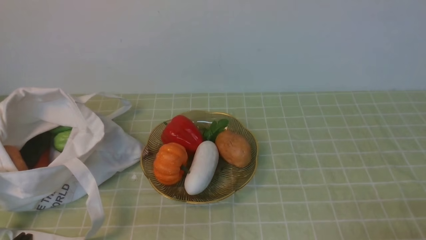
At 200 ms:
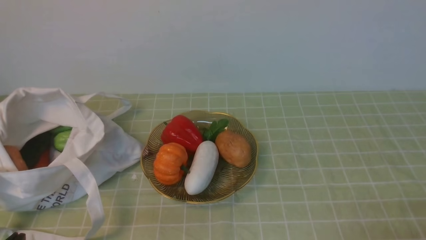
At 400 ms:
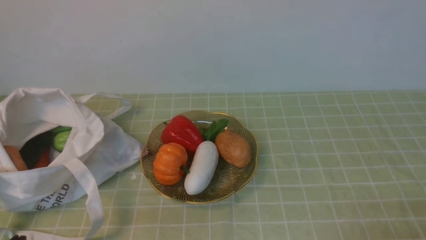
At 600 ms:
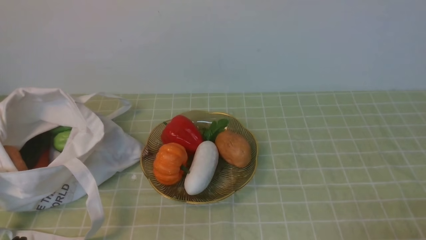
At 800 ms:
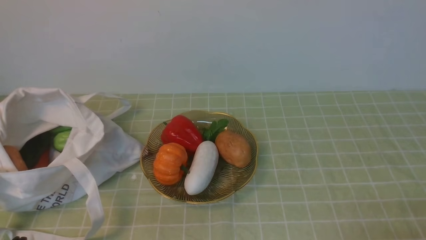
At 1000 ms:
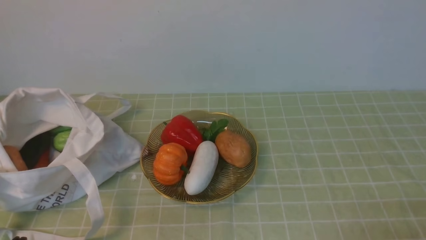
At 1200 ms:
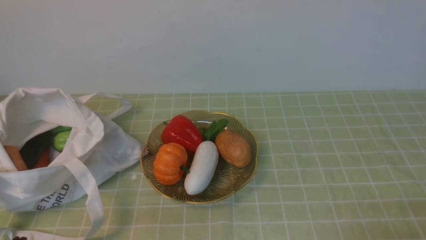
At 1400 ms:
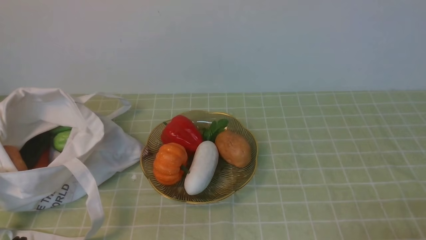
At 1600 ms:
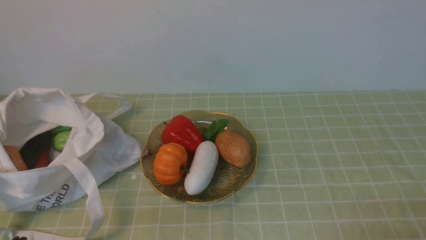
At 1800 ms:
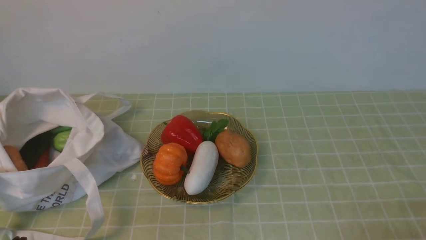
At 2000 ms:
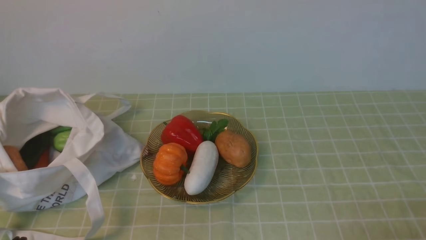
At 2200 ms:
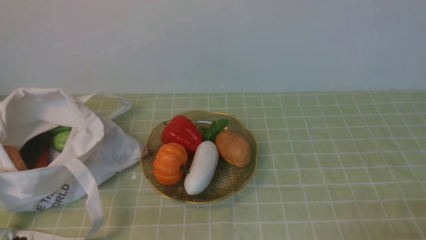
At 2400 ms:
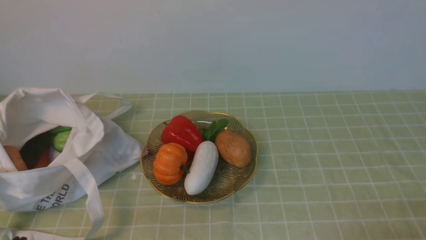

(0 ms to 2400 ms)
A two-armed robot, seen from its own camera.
Task of the whole recording: take vegetables from bag on green coffee tablecloth place on plate.
1200 ms - 2400 ms: Both grippers stay put.
